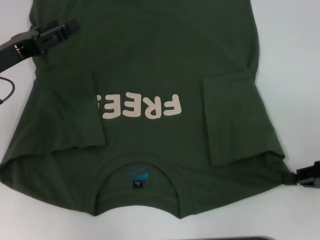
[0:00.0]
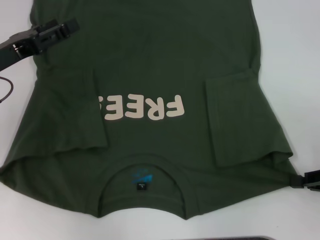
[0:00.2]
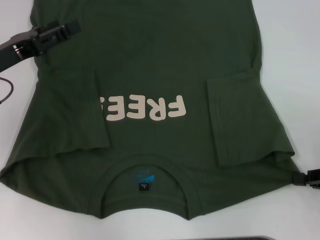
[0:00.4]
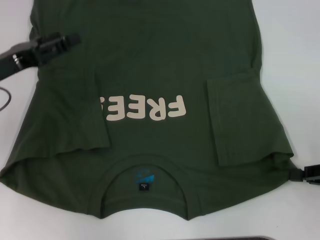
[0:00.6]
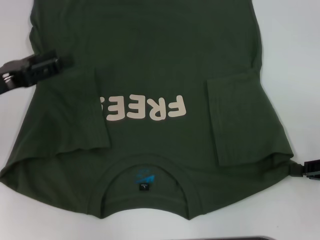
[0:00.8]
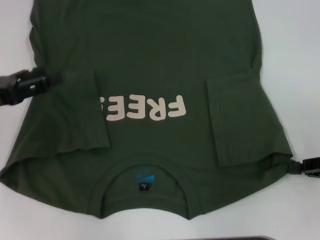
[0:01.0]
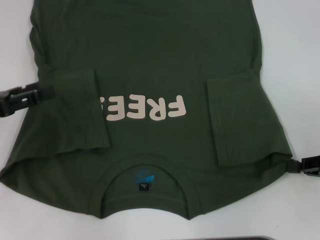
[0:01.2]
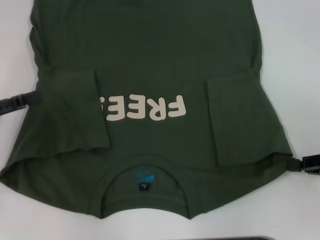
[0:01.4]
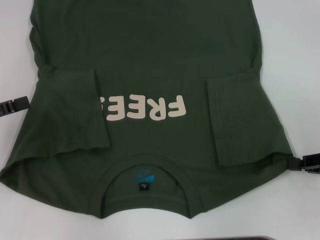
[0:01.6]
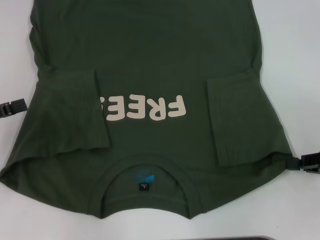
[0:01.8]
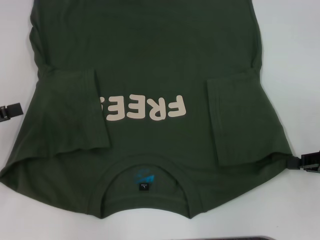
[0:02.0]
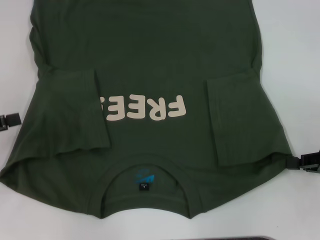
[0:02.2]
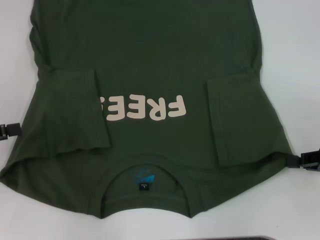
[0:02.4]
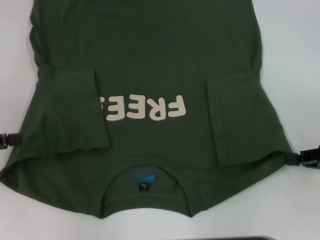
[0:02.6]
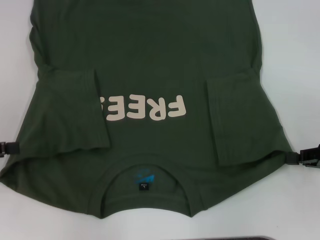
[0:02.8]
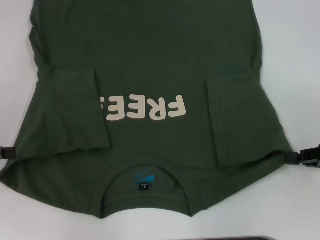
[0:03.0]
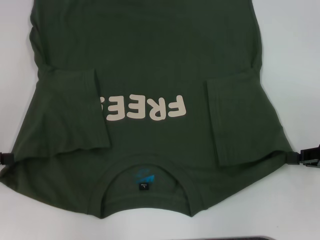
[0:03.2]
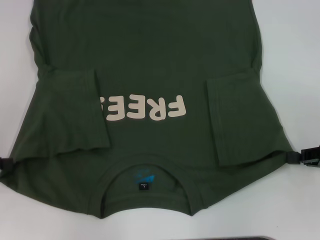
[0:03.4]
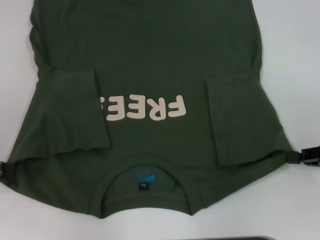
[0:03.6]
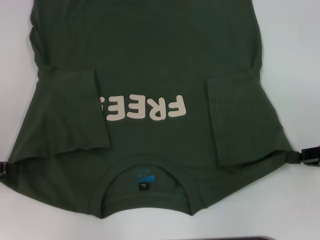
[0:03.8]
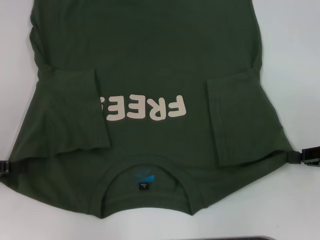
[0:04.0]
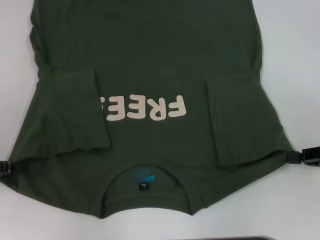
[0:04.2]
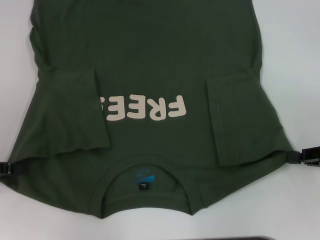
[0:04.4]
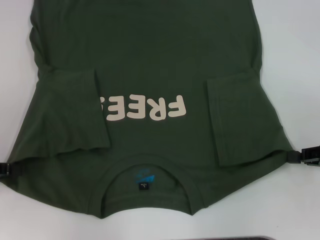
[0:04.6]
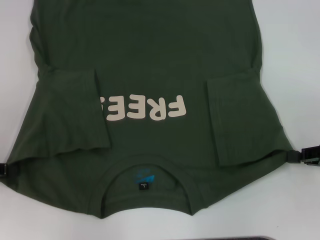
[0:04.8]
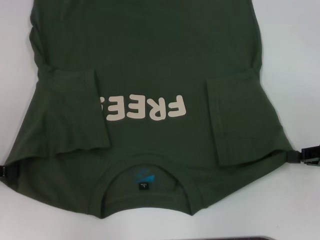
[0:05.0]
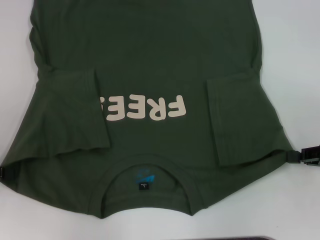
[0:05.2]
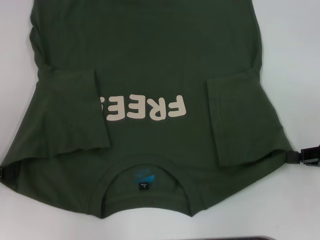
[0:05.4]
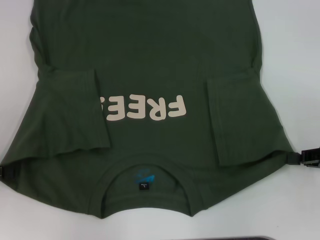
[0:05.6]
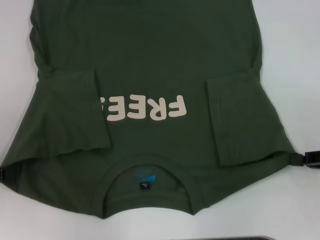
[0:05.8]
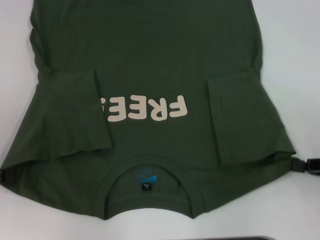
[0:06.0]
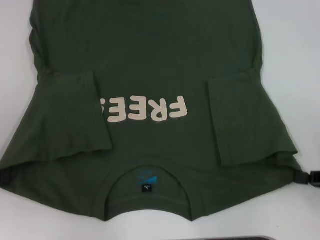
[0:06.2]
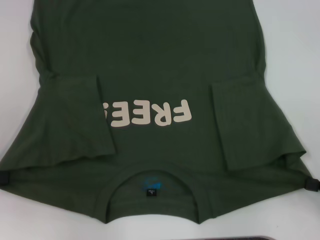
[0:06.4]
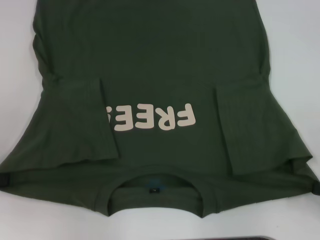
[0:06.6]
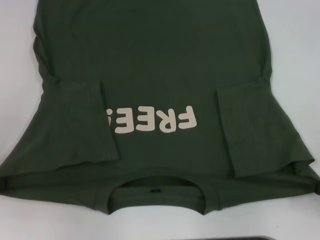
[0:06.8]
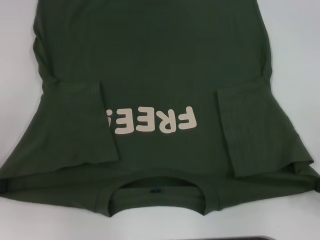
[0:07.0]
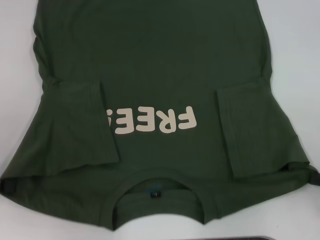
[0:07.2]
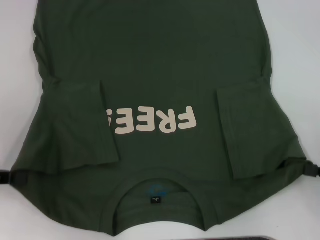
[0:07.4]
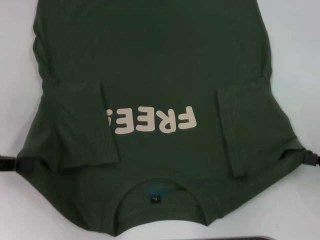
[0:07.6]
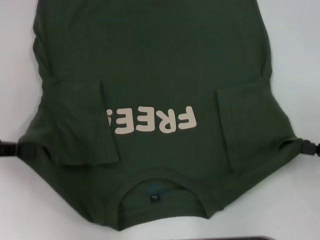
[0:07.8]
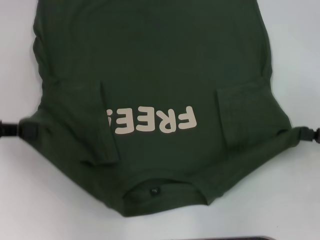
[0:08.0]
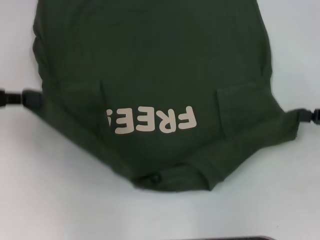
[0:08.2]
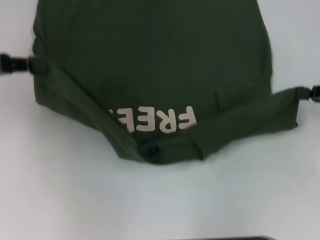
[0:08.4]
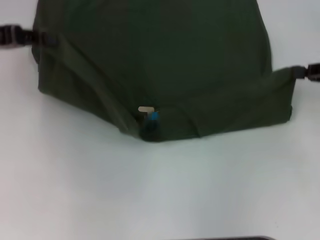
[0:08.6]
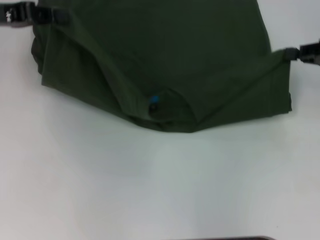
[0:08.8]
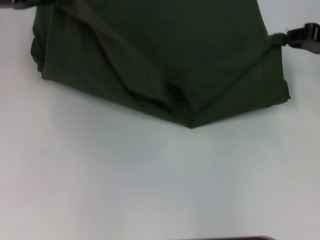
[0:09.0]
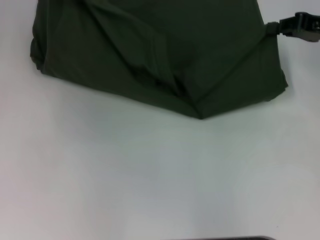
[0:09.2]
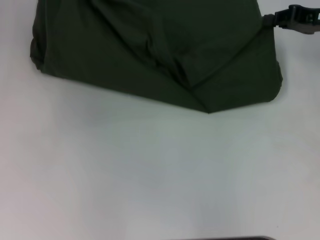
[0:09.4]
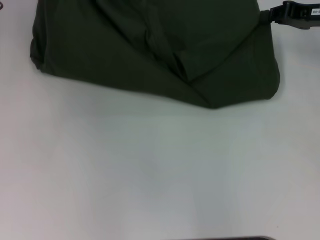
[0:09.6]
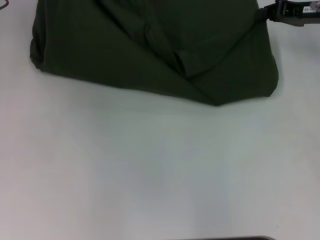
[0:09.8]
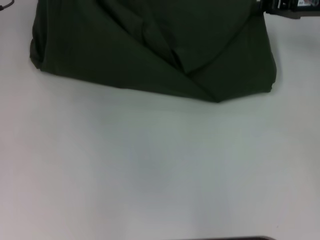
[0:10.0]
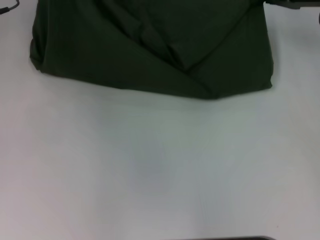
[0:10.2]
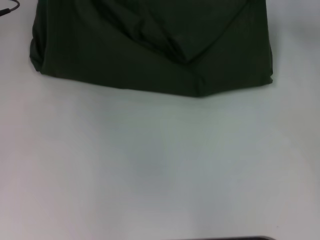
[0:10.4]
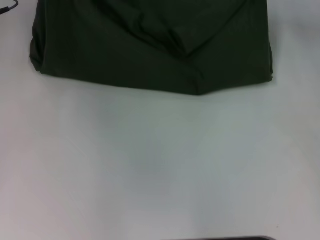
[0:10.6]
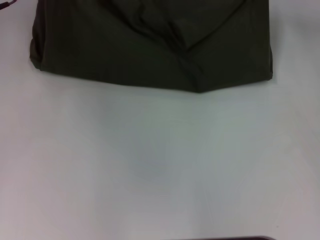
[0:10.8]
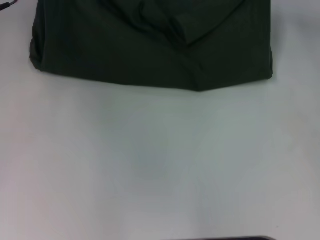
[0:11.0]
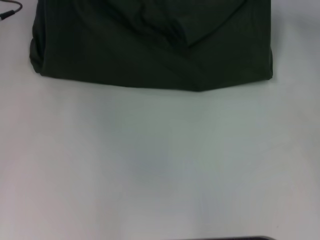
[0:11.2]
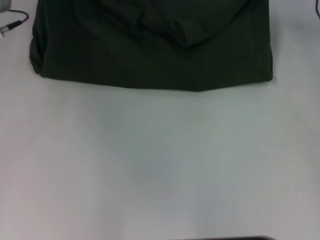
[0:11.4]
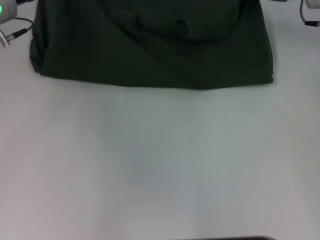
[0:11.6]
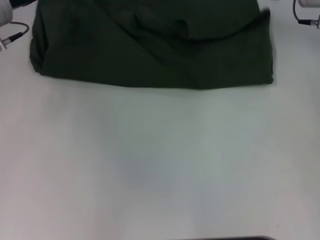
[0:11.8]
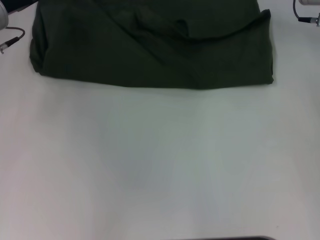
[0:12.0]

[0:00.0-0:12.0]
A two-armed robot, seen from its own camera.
Step, 0:01.2 to 0:05.6: Grab the bottom left corner with your left hand.
0:00.0 to 0:01.6: The left gripper goes approximately 10 cm to the left and backward.
0:03.0 to 0:04.4: The grippers move only a little.
0:04.4 to 0:06.0: The left gripper closes its fingers.
0:07.6 to 0:09.0: The left gripper goes some 20 cm forward, upward and to the right; the right gripper travels forward and upward by roughly 20 cm.
0:09.0 to 0:10.4: The right gripper heads forward, covering some 10 cm. The left gripper changes place by about 5 cm.
0:10.4 to 0:12.0: The left gripper changes place by about 5 cm, and opens up, while the right gripper opens.

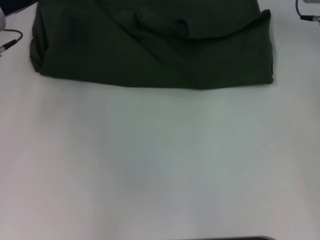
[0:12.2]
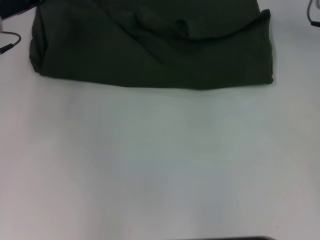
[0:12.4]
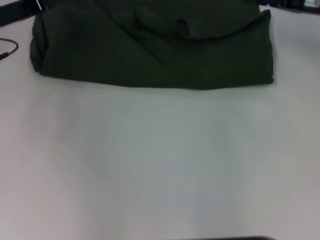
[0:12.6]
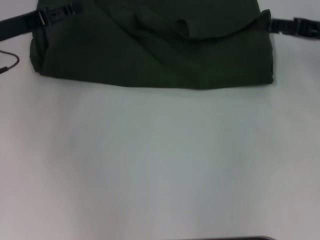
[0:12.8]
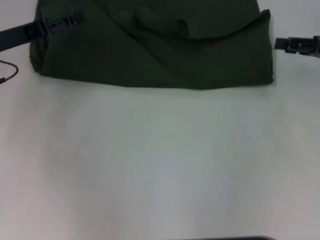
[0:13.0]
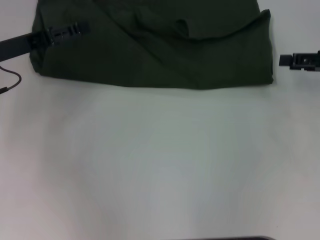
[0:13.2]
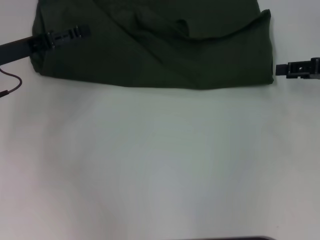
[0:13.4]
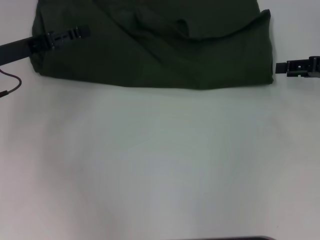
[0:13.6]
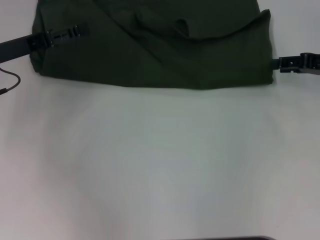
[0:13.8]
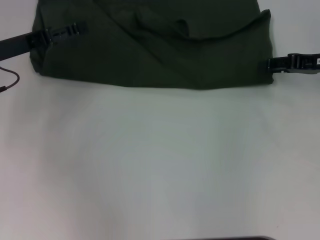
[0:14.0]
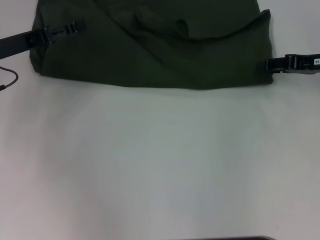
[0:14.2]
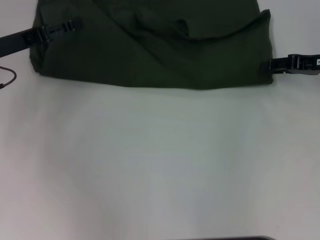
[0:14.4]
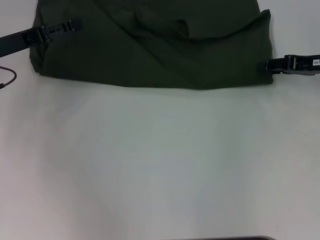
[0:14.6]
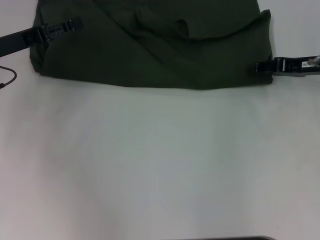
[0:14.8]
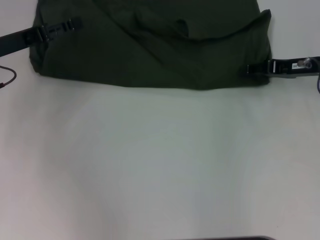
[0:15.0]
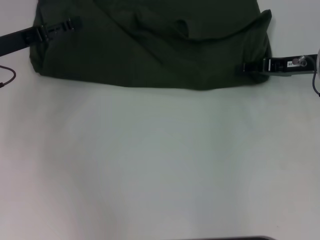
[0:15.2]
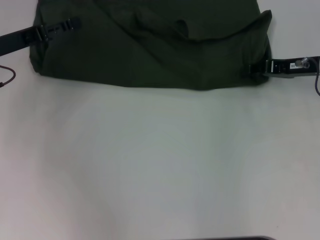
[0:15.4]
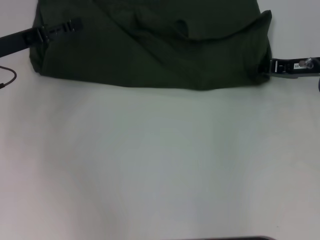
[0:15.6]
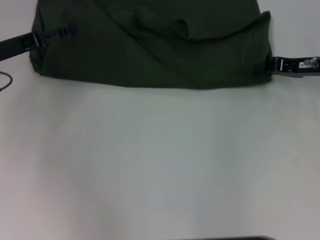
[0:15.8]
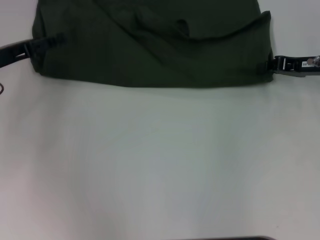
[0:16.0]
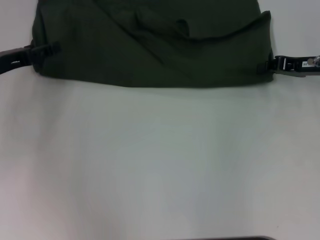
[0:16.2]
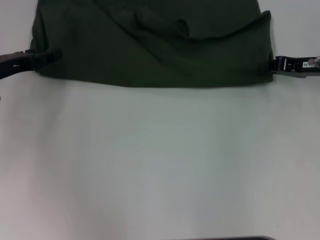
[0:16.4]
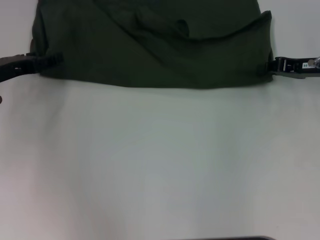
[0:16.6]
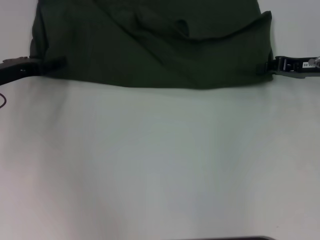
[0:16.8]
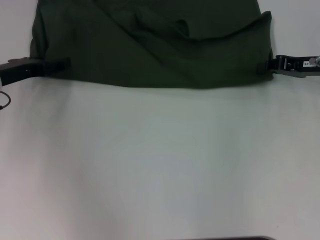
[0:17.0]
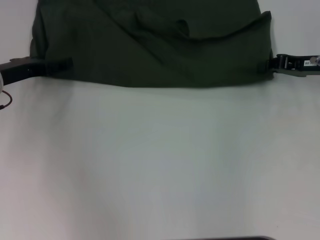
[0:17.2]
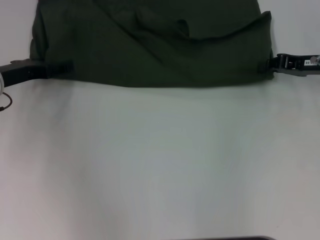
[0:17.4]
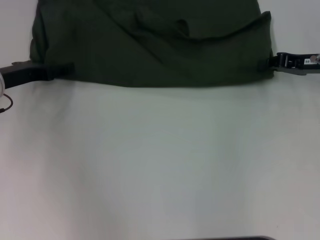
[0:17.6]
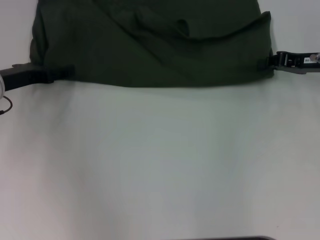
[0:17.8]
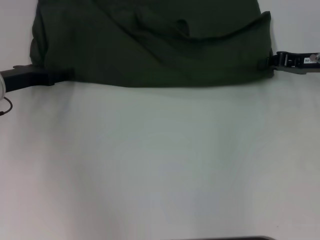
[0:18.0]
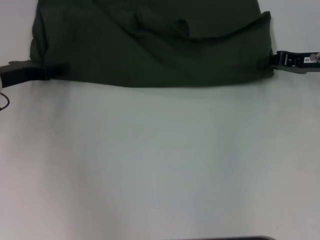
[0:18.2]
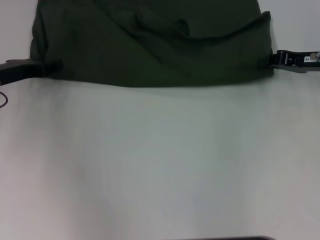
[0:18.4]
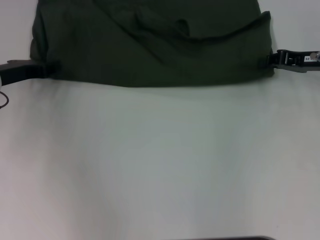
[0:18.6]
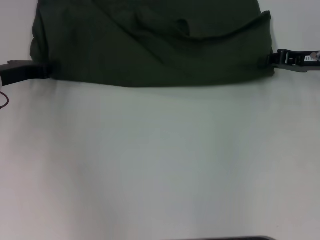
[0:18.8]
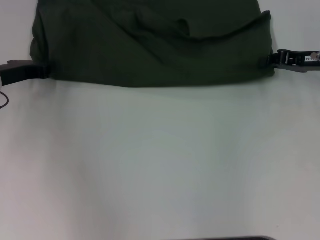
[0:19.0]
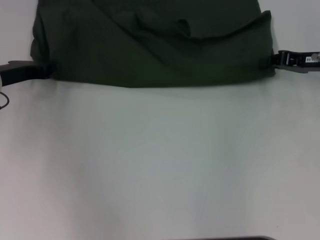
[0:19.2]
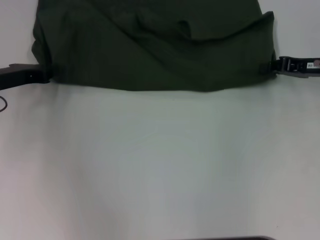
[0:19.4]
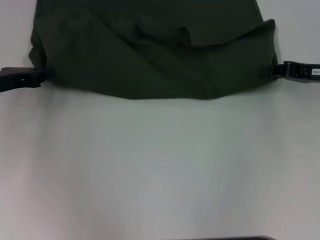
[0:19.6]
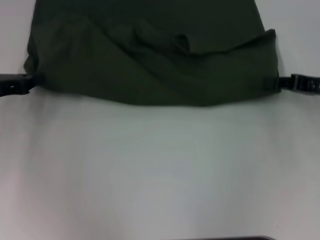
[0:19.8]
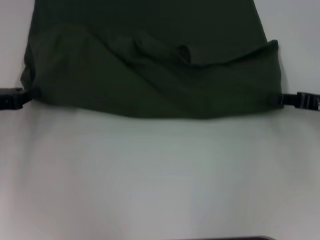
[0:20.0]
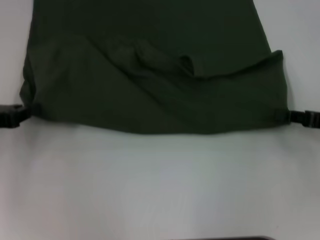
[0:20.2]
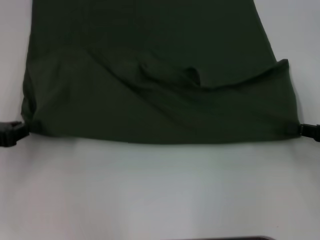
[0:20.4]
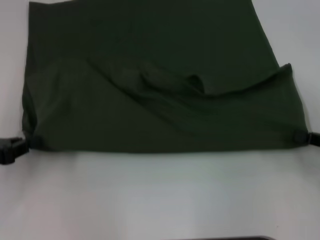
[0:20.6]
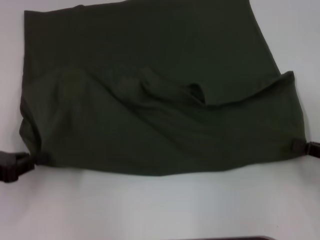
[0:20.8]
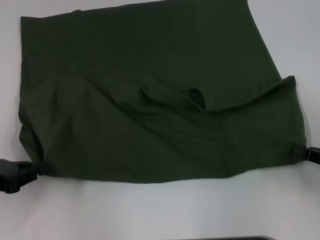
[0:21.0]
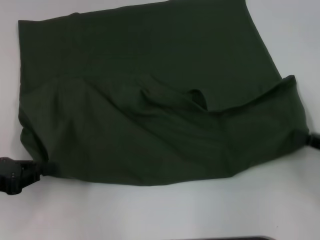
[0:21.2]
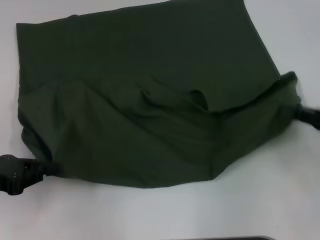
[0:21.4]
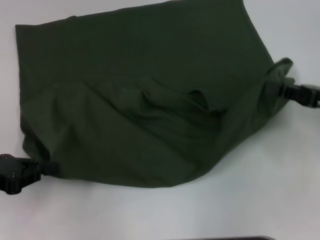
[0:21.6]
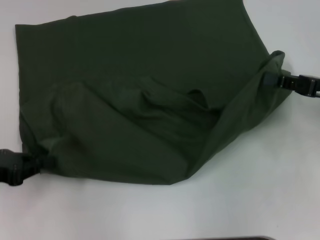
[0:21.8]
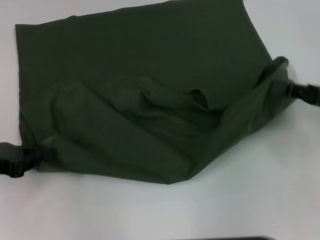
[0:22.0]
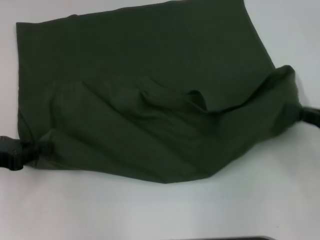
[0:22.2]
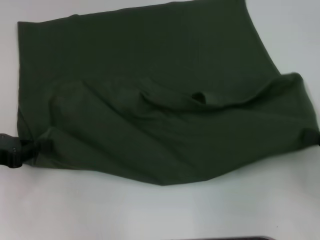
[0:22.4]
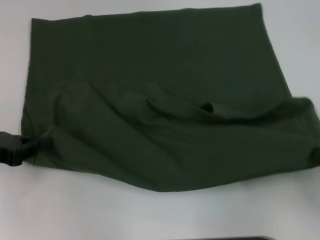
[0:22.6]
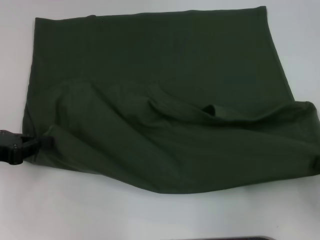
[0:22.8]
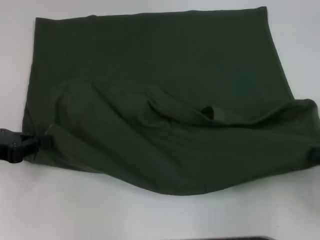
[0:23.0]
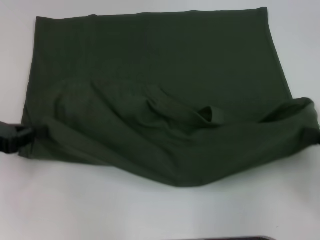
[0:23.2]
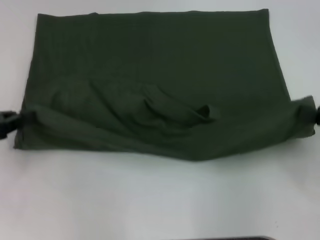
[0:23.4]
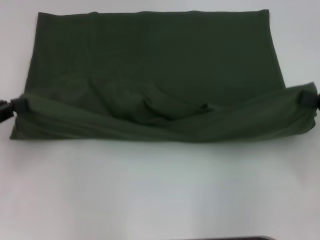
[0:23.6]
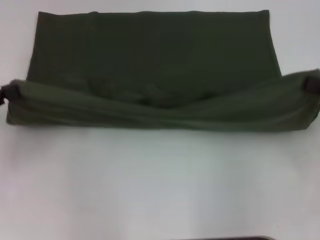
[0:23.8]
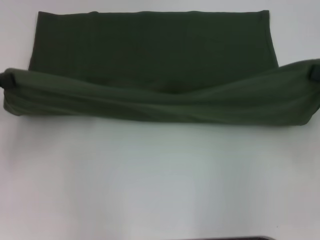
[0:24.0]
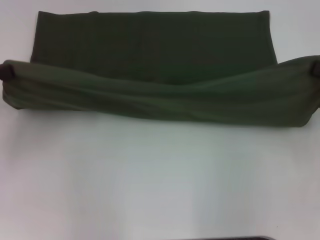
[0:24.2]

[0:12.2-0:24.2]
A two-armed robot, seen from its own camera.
Step, 0:12.4 to 0:21.0: Pull the clothes with your left hand.
Step, 0:12.4 to 0:21.0: Pull the clothes with your right hand.
0:12.2 to 0:13.8: The right gripper goes roughly 15 cm backward and to the right. The left gripper heads backward, covering approximately 5 cm.
0:13.8 to 0:15.2: The right gripper is displaced to the left by roughly 5 cm.
0:15.2 to 0:16.6: The right gripper closes up.
0:16.6 to 0:18.2: The grippers make only small movements.
0:18.2 to 0:19.8: The right gripper moves approximately 5 cm, while the left gripper shifts by about 5 cm, and closes.
0:19.8 to 0:21.2: Both grippers travel together backward, about 10 cm.
0:21.2 to 0:22.6: The right gripper reaches roughly 10 cm forward, then returns.
0:22.6 to 0:24.2: The left gripper shifts approximately 5 cm upward. The right gripper goes roughly 10 cm forward and upward.
